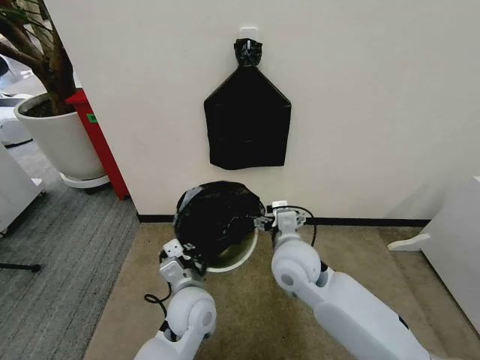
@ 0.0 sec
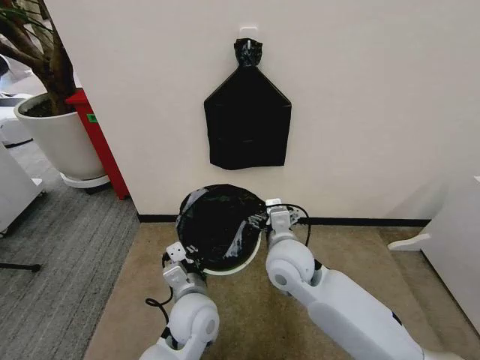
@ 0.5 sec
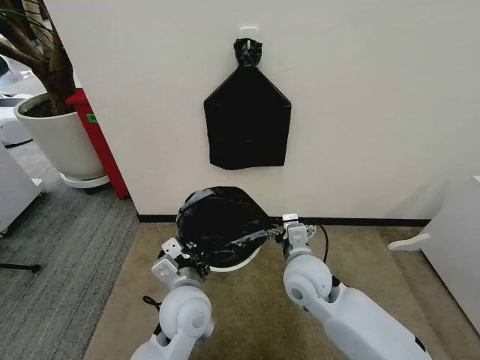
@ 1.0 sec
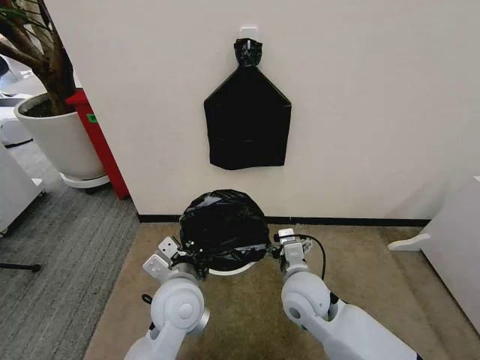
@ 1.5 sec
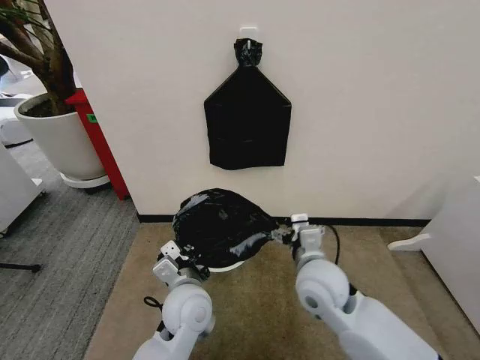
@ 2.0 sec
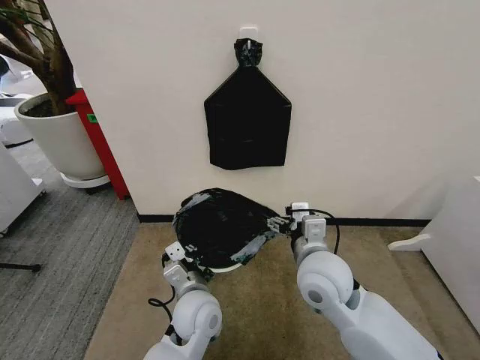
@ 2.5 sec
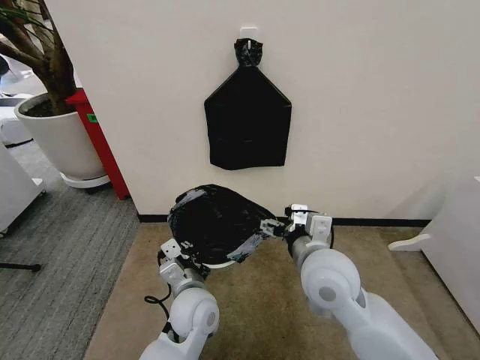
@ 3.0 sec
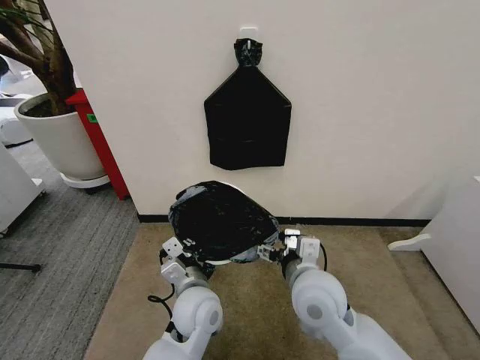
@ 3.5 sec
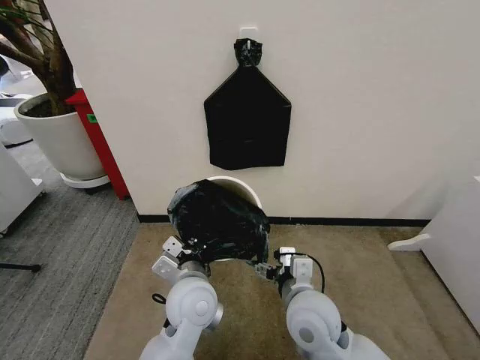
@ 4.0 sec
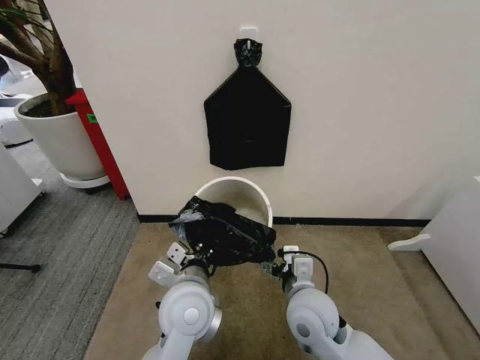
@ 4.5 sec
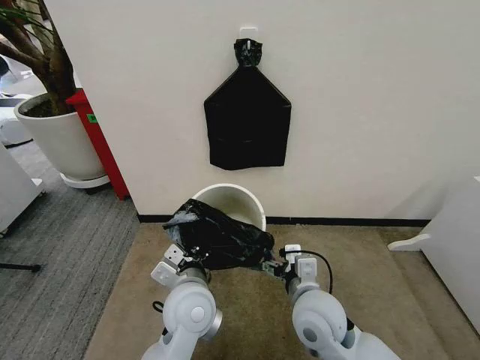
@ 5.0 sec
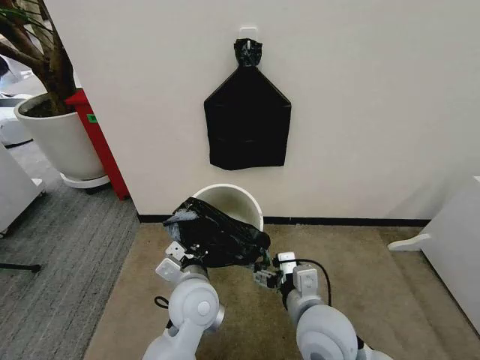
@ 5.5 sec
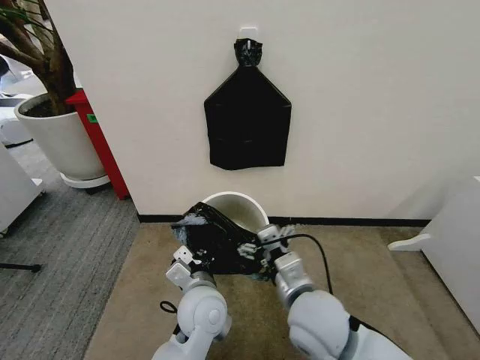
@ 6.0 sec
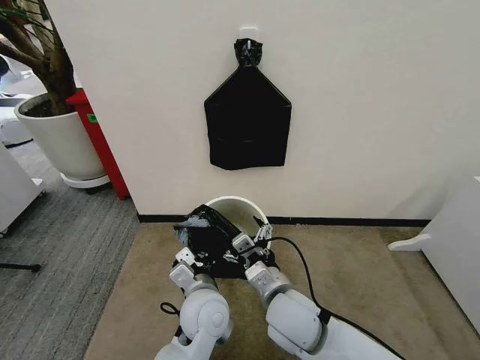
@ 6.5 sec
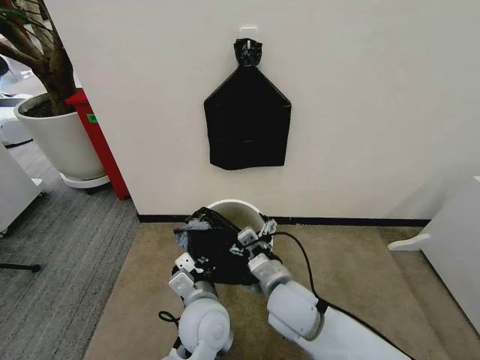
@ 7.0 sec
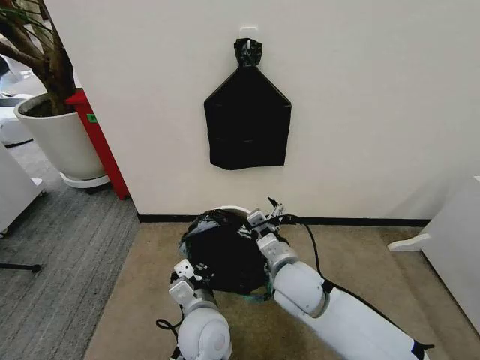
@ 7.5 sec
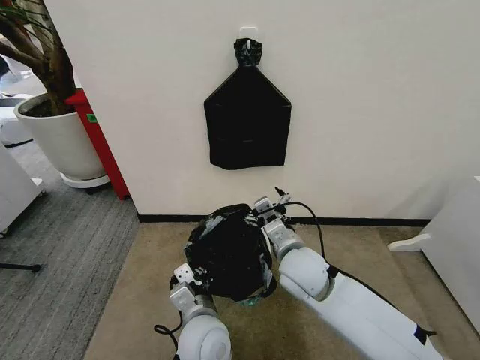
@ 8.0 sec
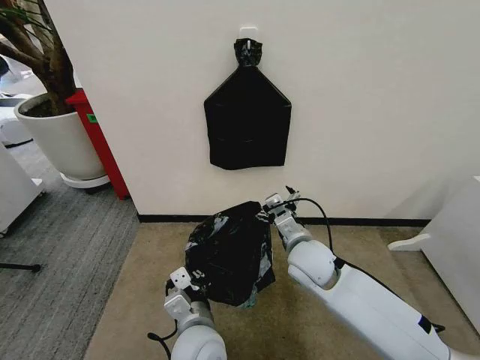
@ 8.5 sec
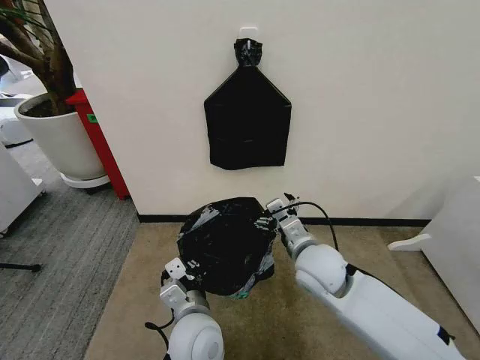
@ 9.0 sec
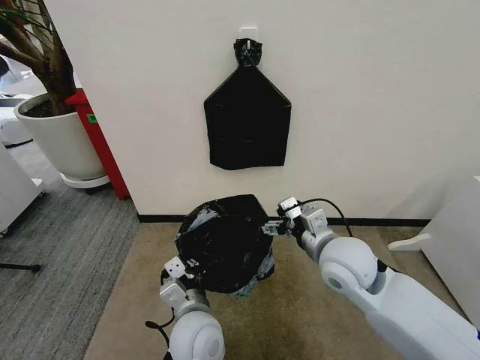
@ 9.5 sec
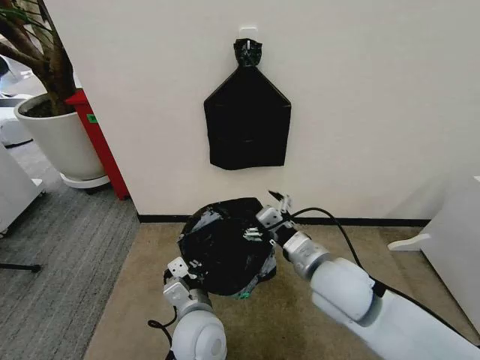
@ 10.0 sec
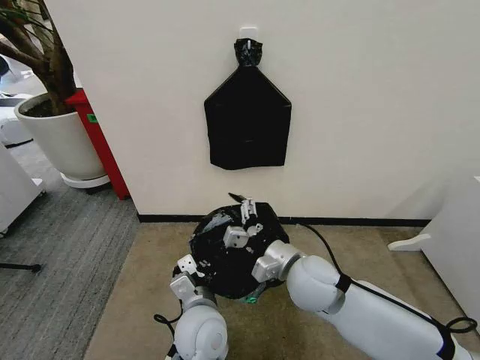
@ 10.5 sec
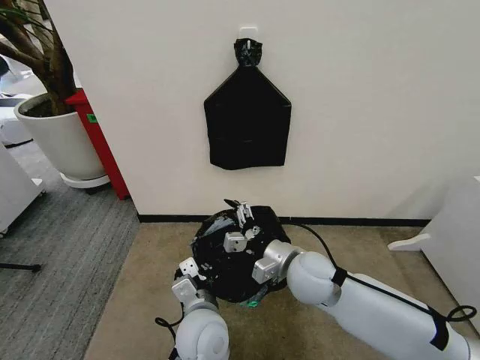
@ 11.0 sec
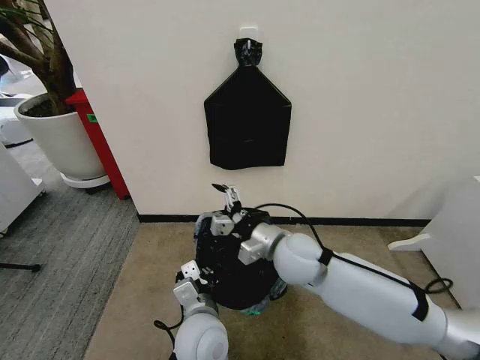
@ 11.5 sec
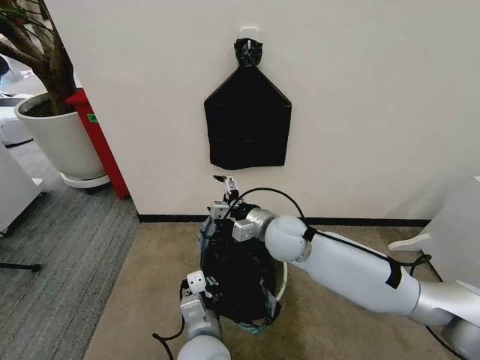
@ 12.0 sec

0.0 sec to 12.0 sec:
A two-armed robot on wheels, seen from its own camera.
Task of the whole recording: Place the garbage bag over the trash bin.
0.0 sec to 2.0 sec: The right gripper moves some 5 cm.
2.0 sec to 4.0 sec: The right gripper is displaced backward by some 5 cm, and moves some 5 cm upward and comes back.
6.0 sec to 8.0 sec: The right gripper goes about 10 cm forward; the left gripper changes place by approximately 5 cm.
8.0 sec to 10.0 sec: The right gripper is displaced upward and backward by roughly 5 cm.
10.0 sec to 12.0 sec: The right gripper is displaced forward and to the left by approximately 15 cm.

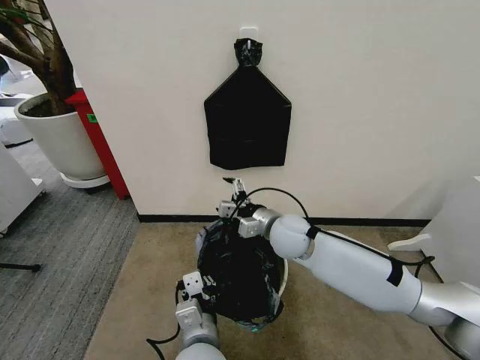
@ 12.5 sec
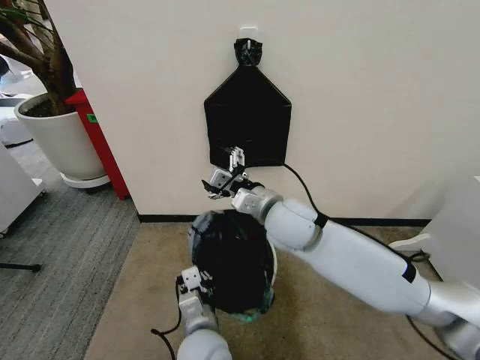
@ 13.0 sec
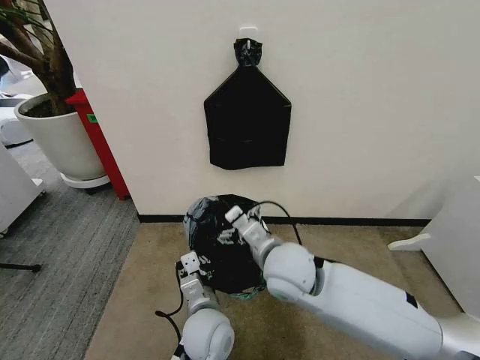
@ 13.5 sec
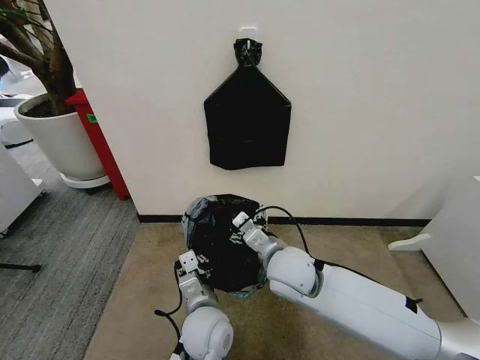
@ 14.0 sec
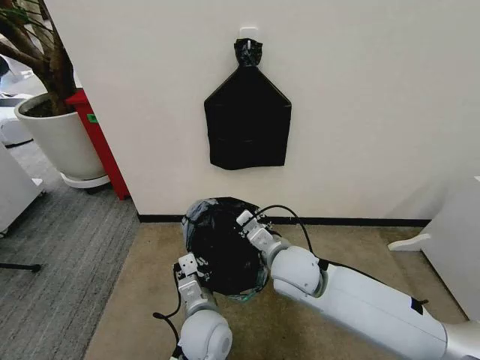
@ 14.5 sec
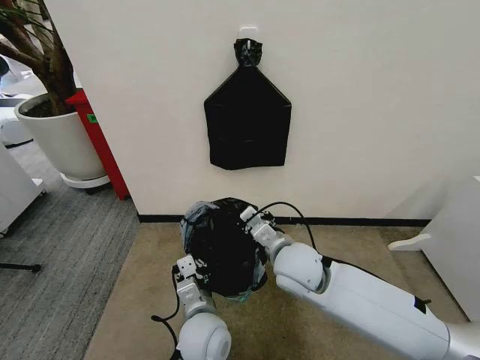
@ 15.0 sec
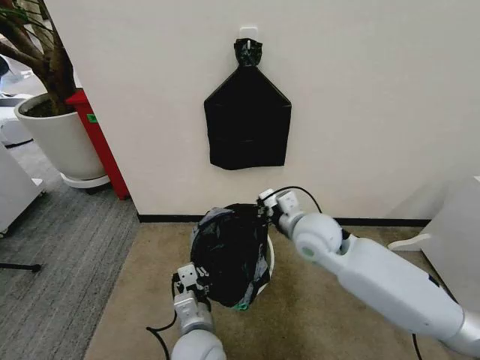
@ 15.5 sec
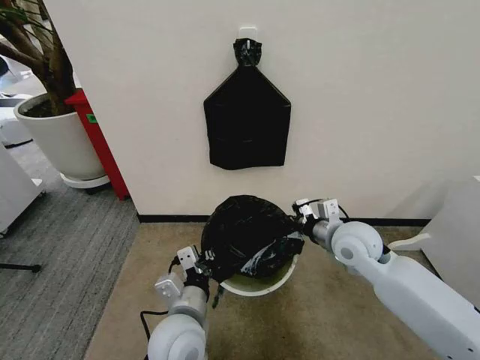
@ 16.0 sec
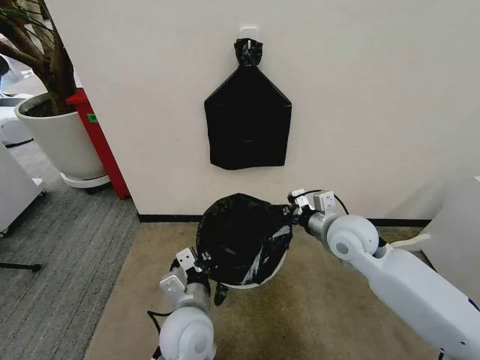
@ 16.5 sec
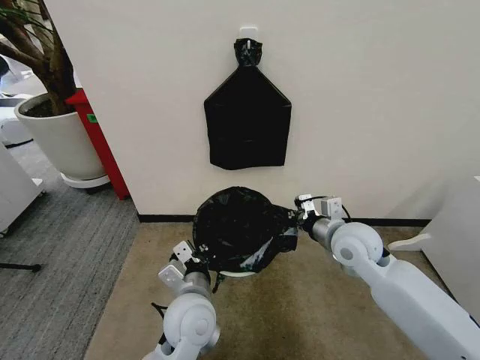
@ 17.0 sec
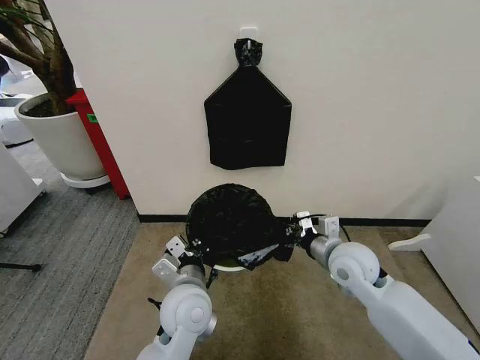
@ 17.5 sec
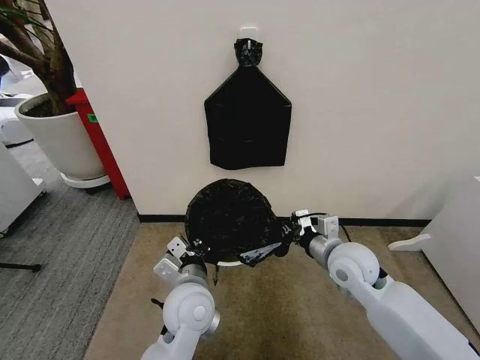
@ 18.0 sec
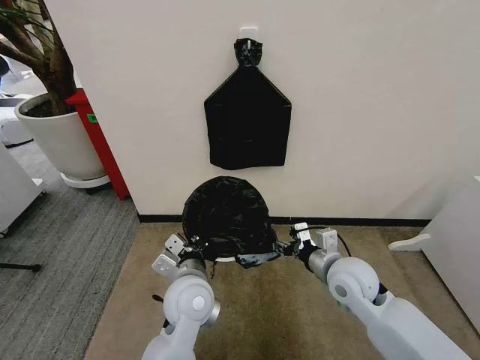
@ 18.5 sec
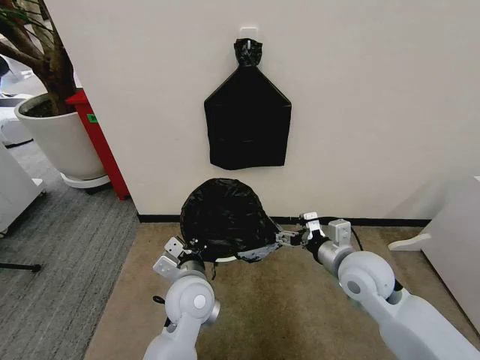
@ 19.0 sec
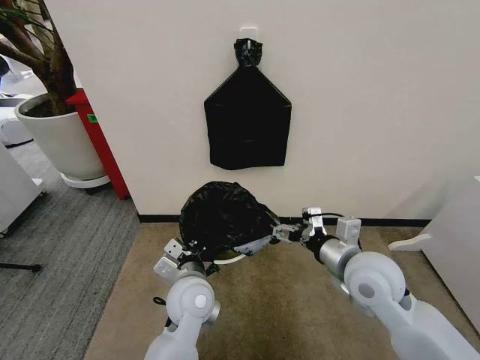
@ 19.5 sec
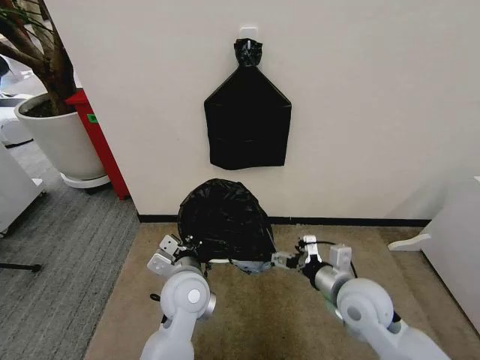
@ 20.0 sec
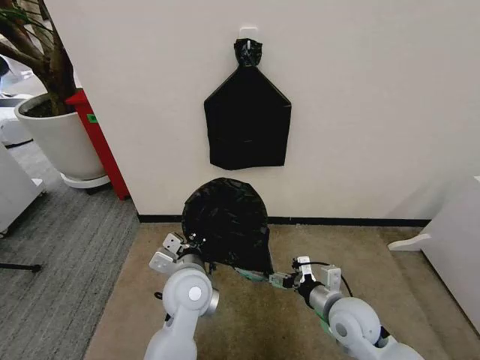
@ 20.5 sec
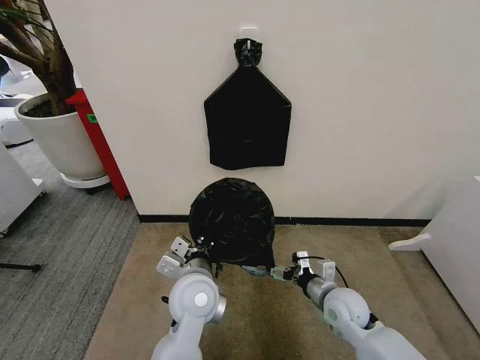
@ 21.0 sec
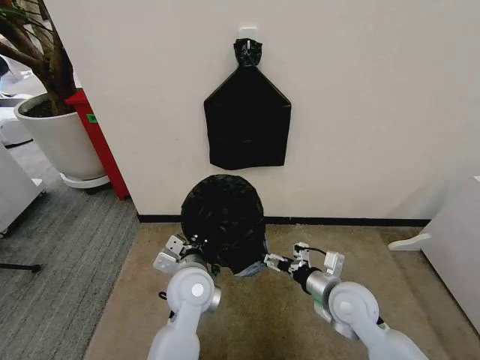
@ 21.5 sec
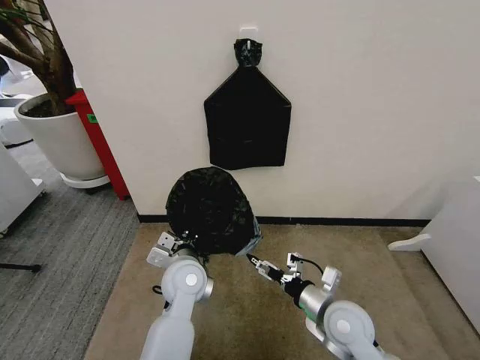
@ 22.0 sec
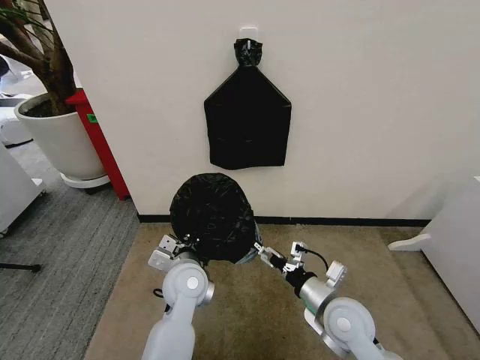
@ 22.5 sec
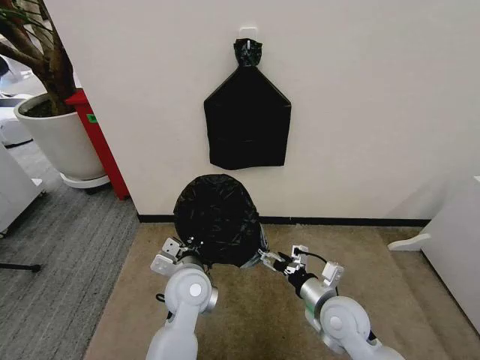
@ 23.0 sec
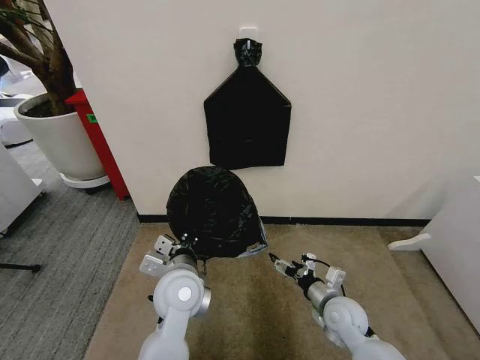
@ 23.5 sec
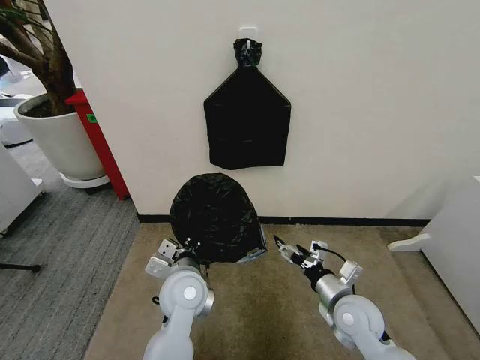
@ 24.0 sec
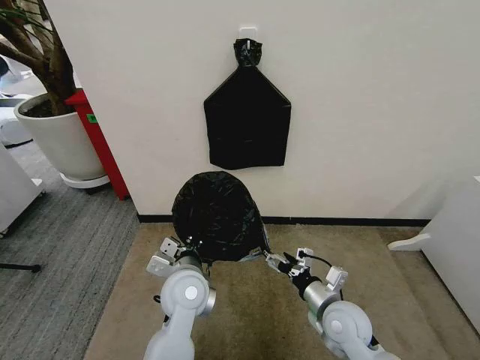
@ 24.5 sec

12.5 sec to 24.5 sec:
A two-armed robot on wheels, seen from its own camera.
Task of the whole recording: Place the garbage bag over the trash bin.
12.5 sec to 14.5 sec: The left gripper is displaced forward by approximately 5 cm; the right gripper heads backward, covering approximately 10 cm, and closes its fingers.
14.5 sec to 16.5 sec: The left gripper changes place by some 5 cm; the right gripper goes about 15 cm to the right and forward, and closes up.
16.5 sec to 18.5 sec: The left gripper shifts about 5 cm forward; the right gripper is displaced downward and backward by approximately 10 cm, and opens.
18.5 sec to 20.5 sec: The right gripper shifts approximately 10 cm downward and backward.

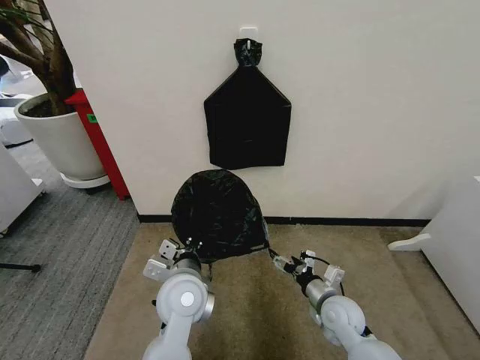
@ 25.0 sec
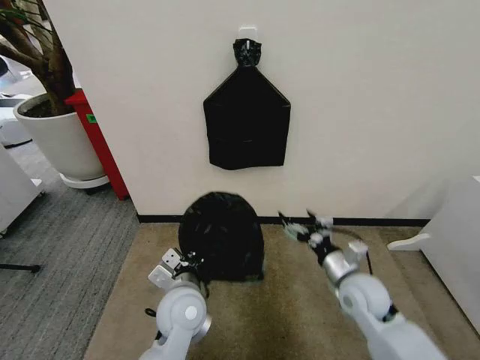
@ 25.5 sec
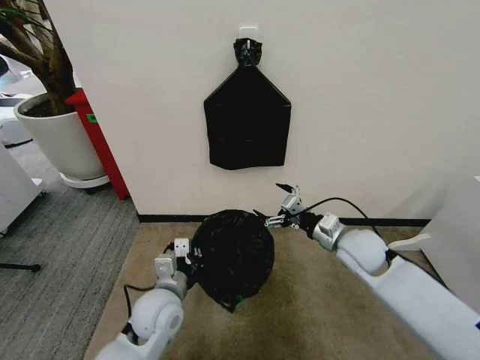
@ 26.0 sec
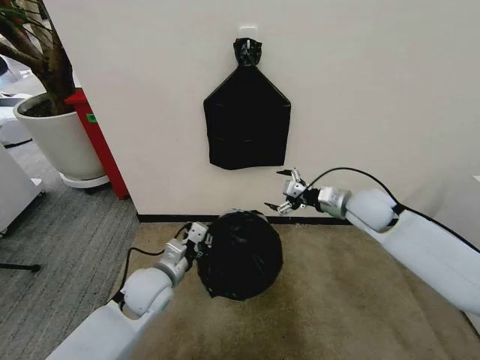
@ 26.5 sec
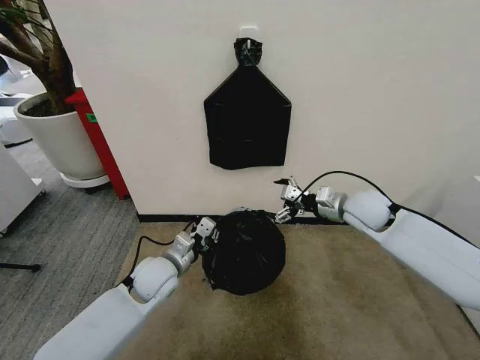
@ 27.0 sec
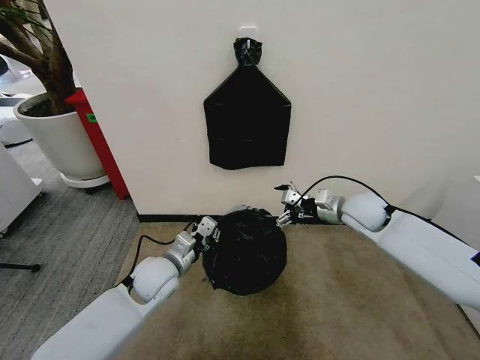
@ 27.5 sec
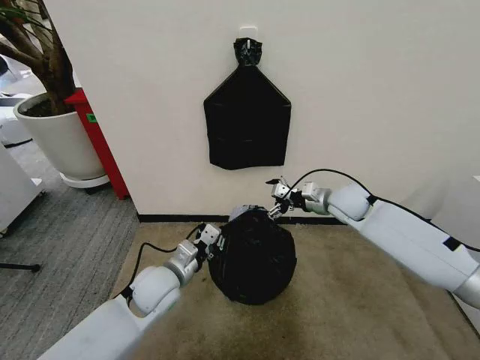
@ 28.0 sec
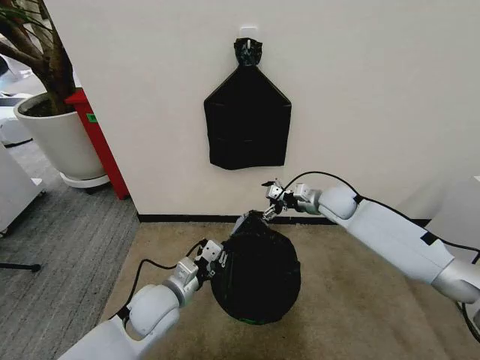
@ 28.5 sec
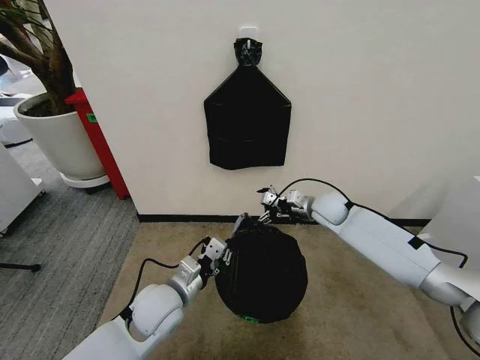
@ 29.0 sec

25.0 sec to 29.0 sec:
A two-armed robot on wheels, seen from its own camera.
Task of the whole recording: Place the garbage bag over the trash bin.
25.0 sec to 27.0 sec: The right gripper travels upward and forward by about 25 cm, while the left gripper is displaced to the left, forward and downward by roughly 10 cm.
27.0 sec to 29.0 sec: The right gripper goes about 10 cm downward and forward. Meanwhile the left gripper heads backward, covering roughly 5 cm.
